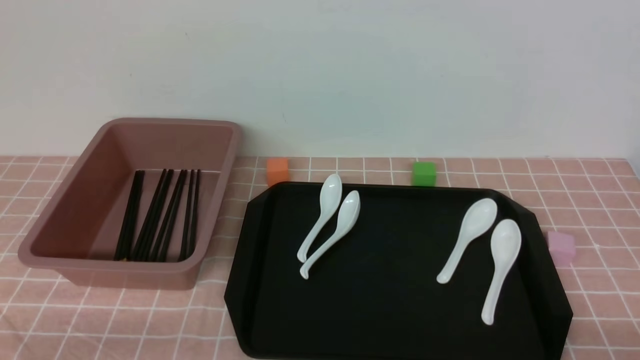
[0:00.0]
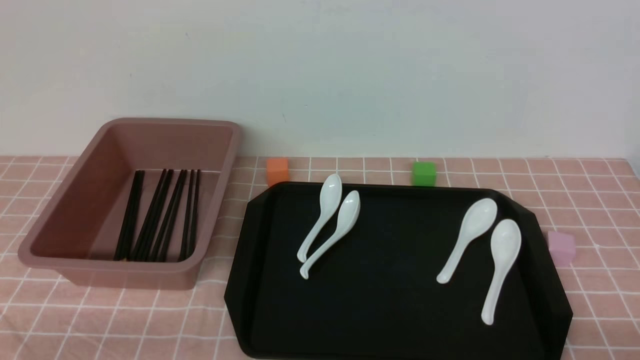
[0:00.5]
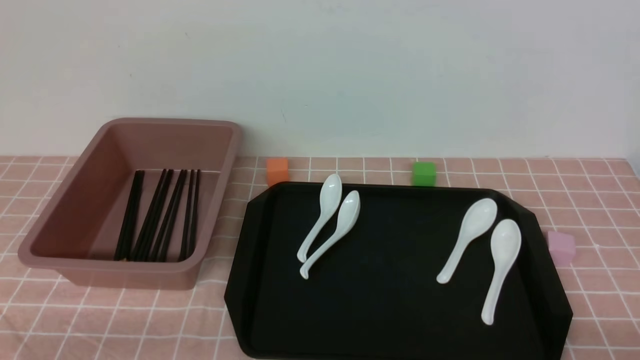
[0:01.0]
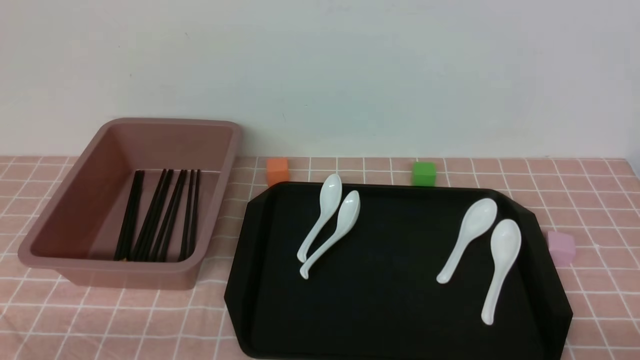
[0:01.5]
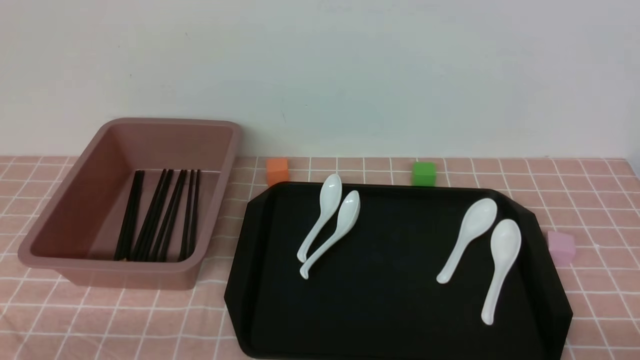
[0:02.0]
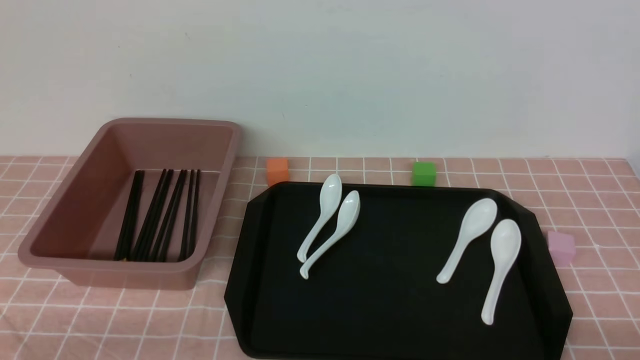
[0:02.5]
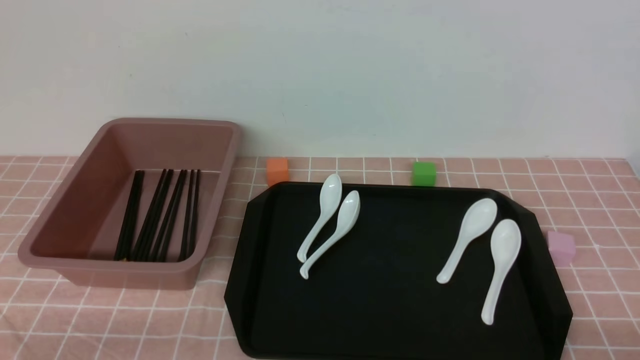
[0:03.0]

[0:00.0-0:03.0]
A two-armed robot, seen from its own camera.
0:00.0 to 0:03.0: Neither gripper changes place.
